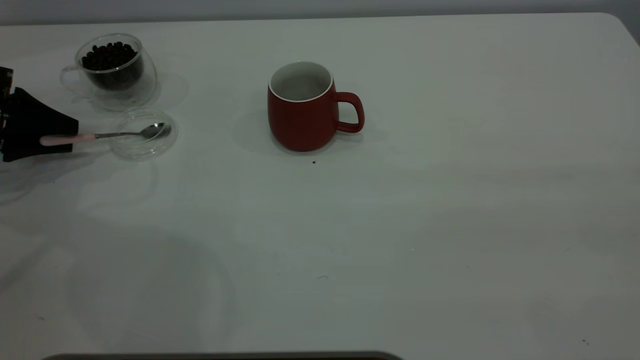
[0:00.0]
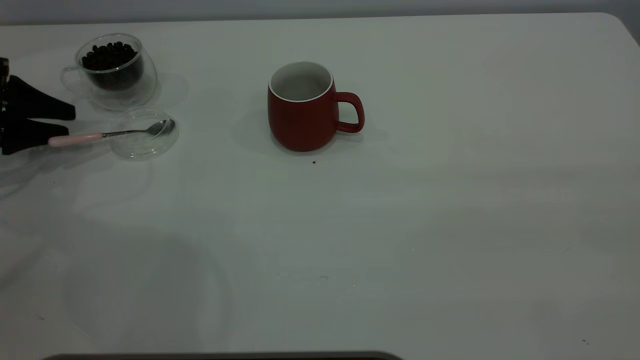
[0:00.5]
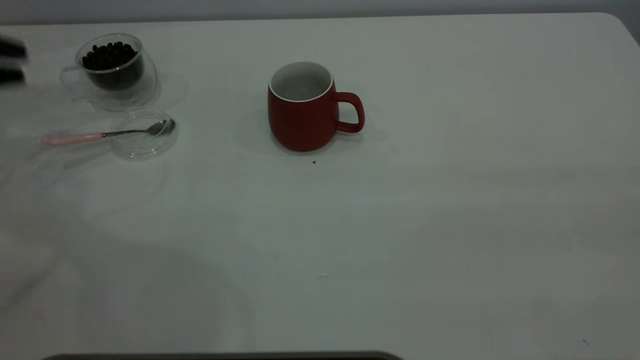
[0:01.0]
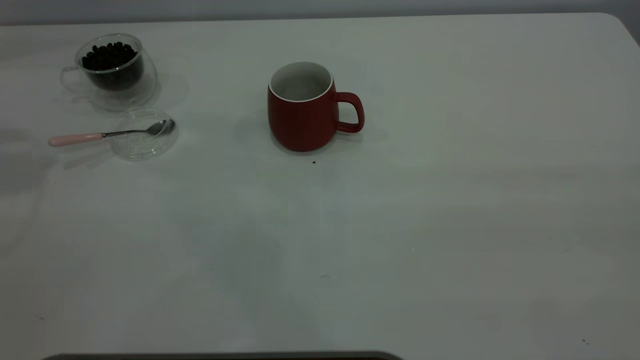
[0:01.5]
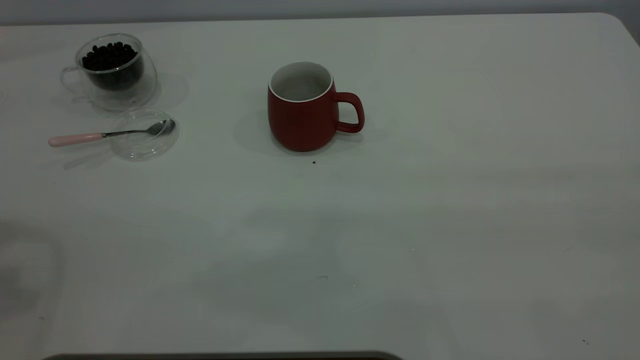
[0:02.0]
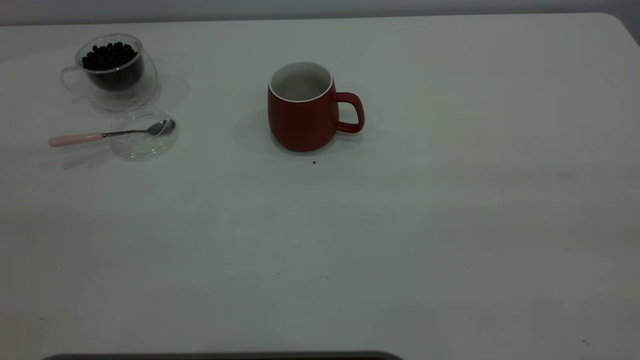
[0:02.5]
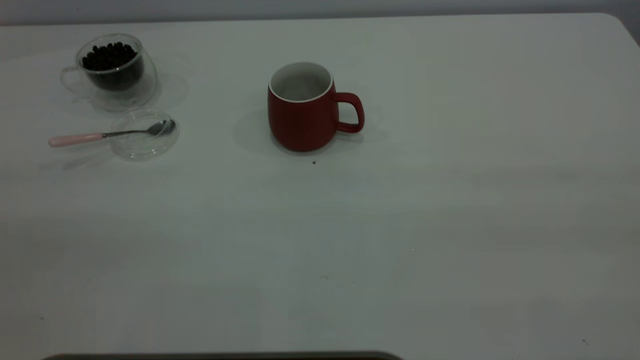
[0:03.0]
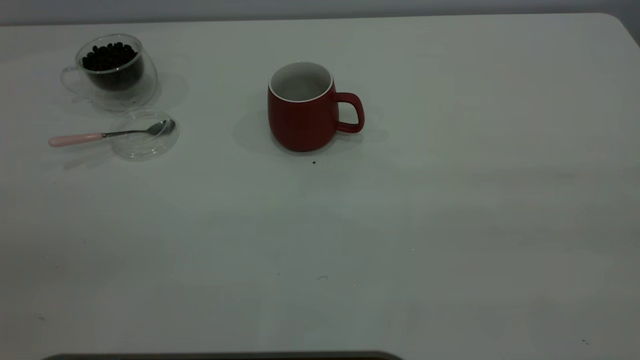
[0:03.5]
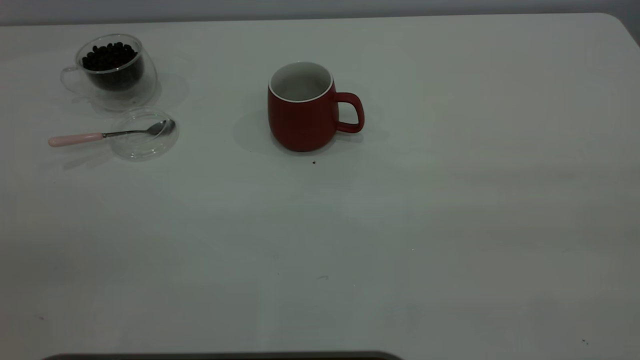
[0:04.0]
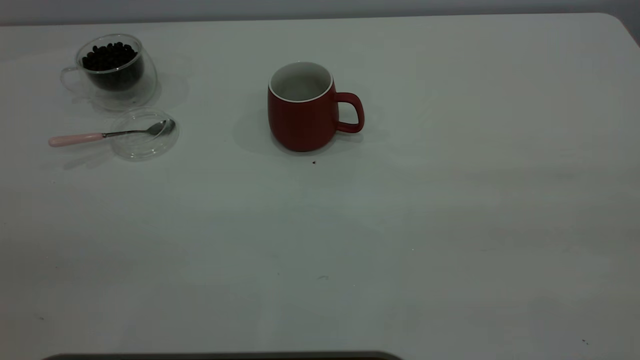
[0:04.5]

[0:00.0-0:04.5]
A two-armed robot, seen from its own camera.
Task of the whole recording: the right gripper place the red cup in the center of the table, the left gripper take the pink spoon from the cup lid and scoop out the coffee beans from the coffee cup and put them into the red cup, the left gripper put the spoon back into the cup lid.
0:00.0 to 0:02.0: The left gripper moves upward and backward, roughly 40 cm.

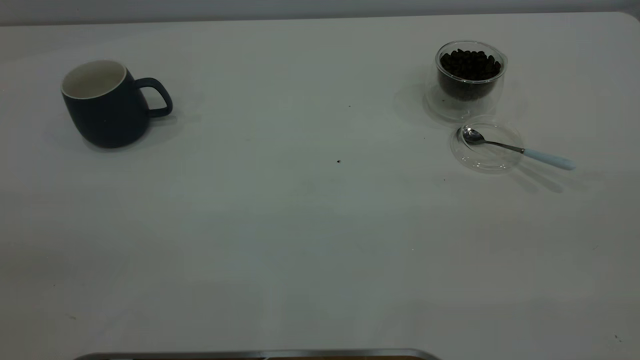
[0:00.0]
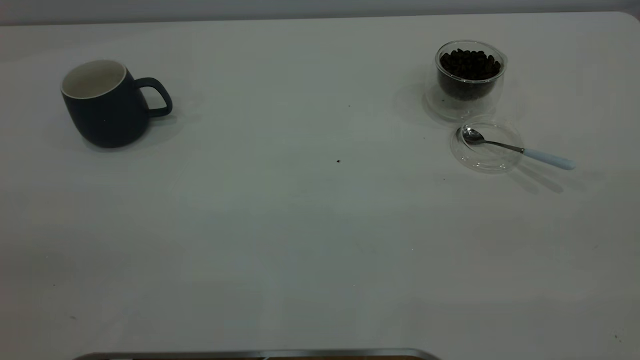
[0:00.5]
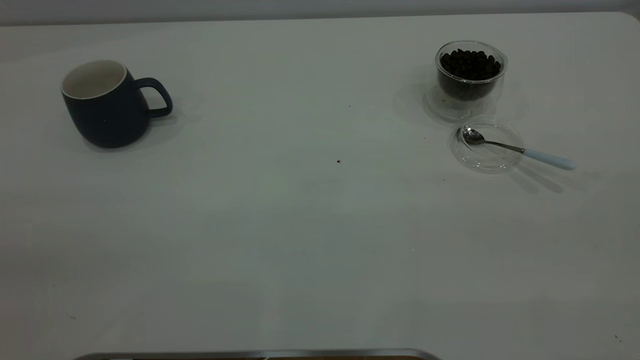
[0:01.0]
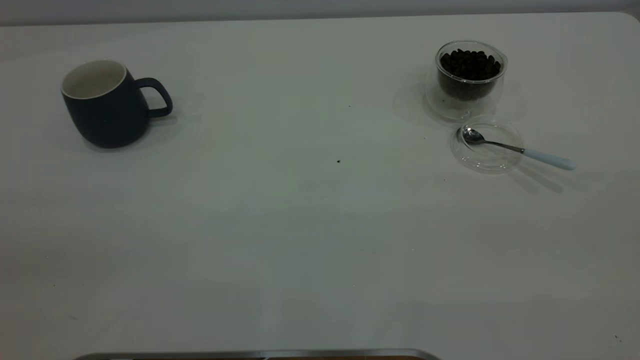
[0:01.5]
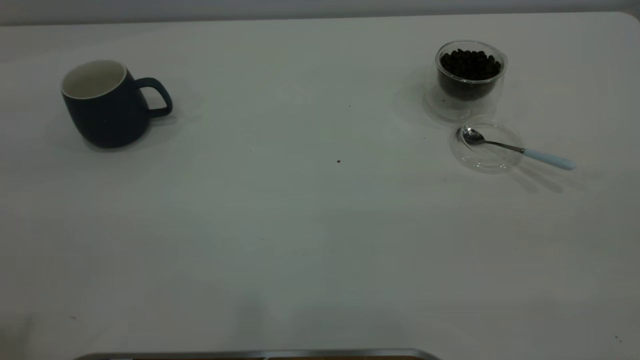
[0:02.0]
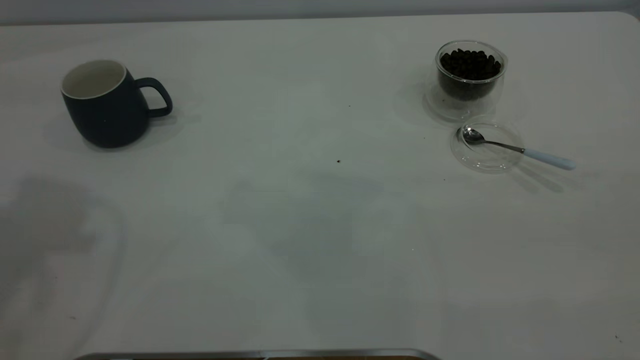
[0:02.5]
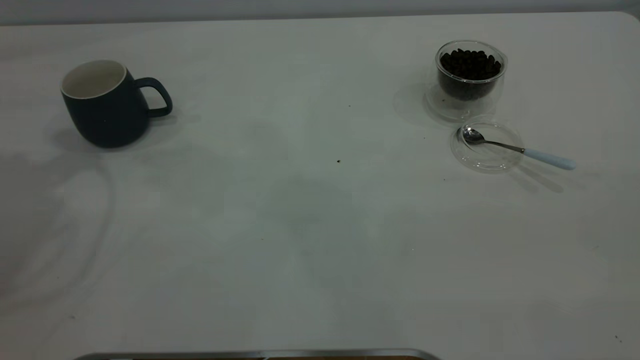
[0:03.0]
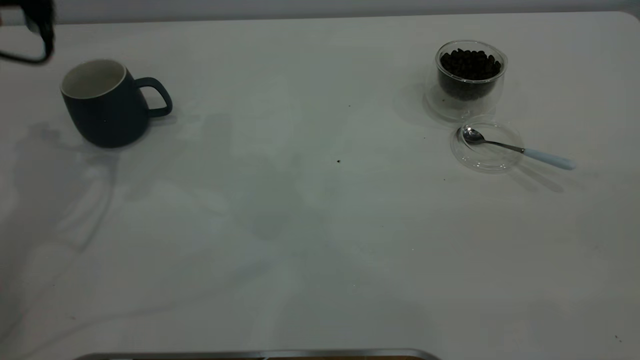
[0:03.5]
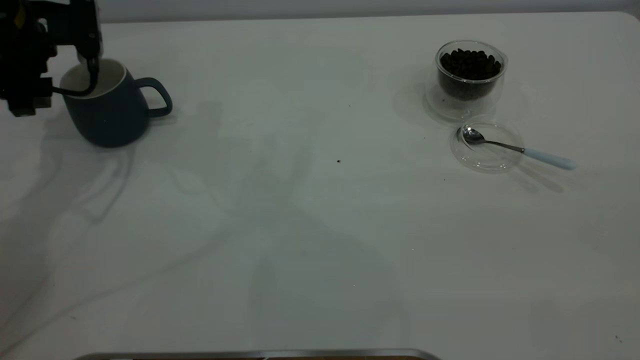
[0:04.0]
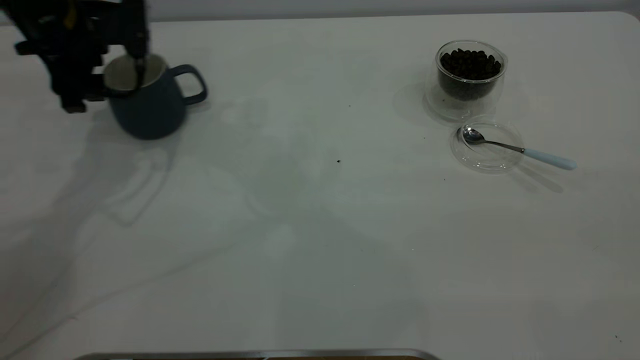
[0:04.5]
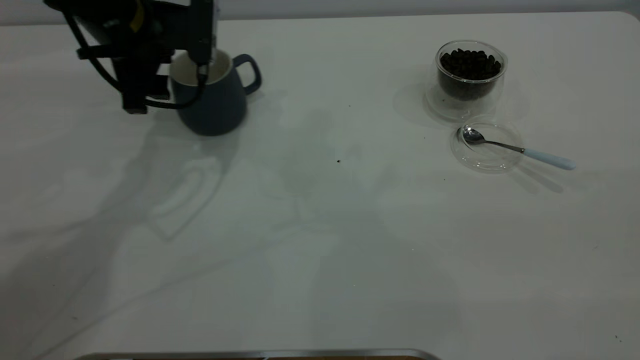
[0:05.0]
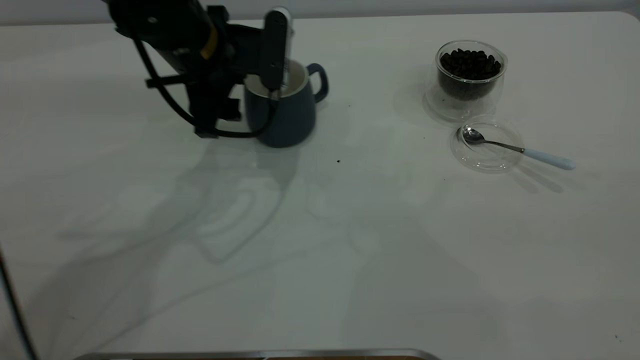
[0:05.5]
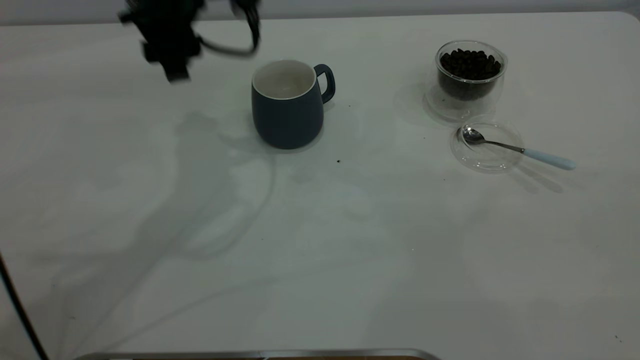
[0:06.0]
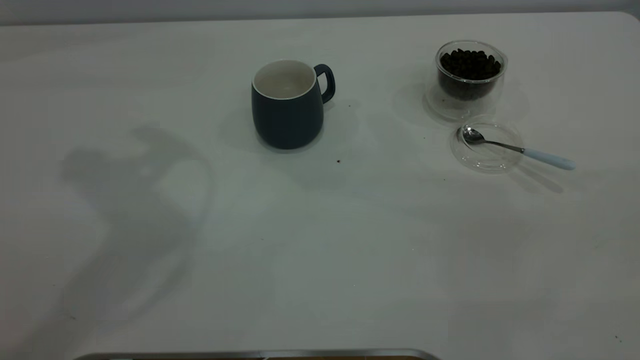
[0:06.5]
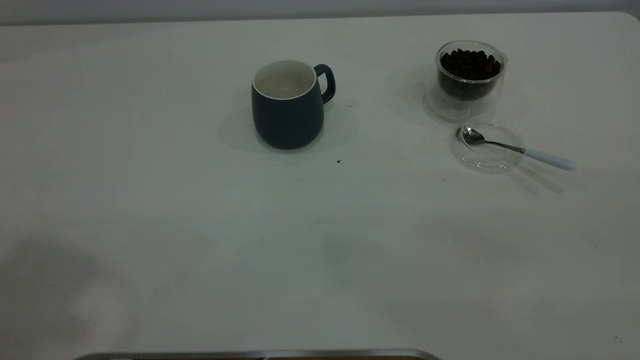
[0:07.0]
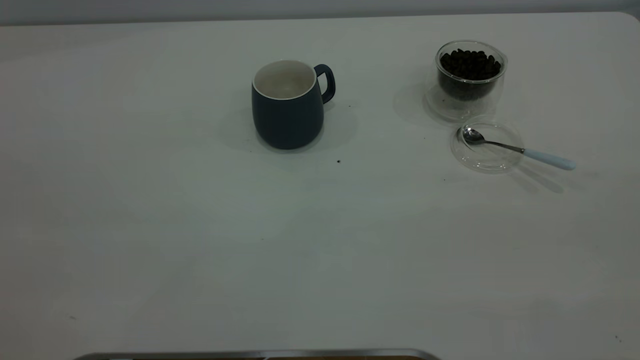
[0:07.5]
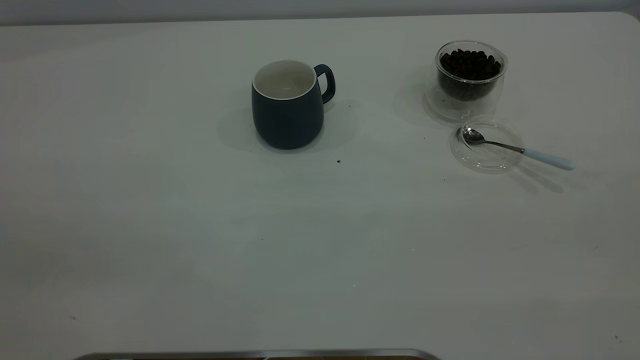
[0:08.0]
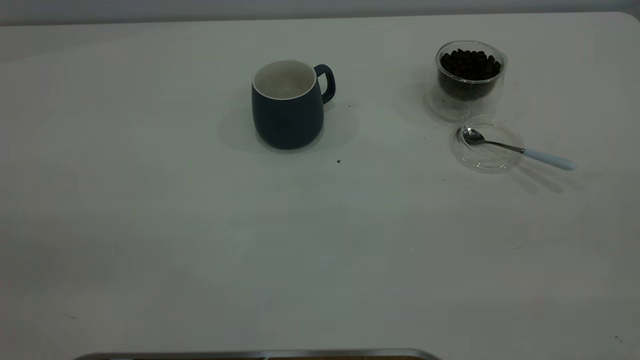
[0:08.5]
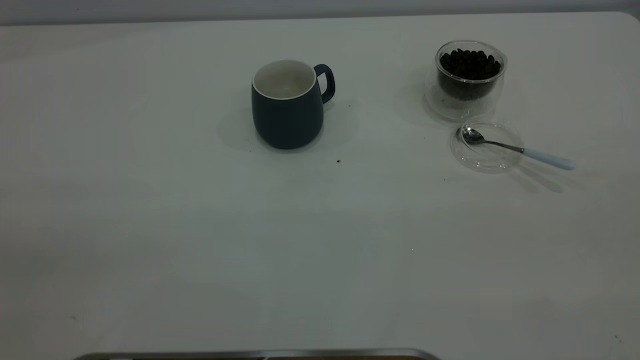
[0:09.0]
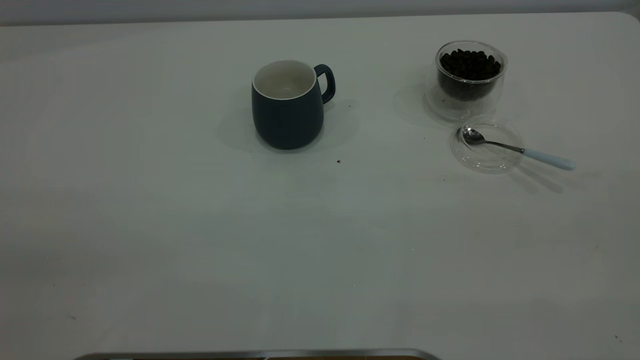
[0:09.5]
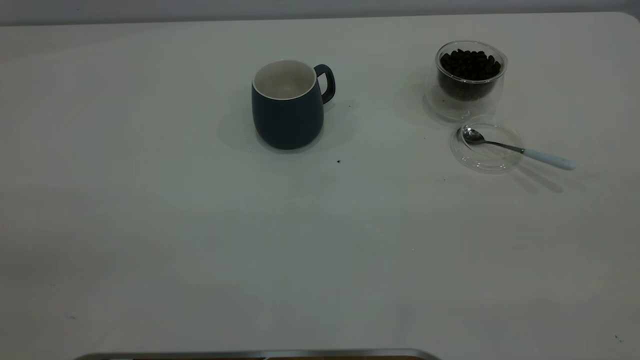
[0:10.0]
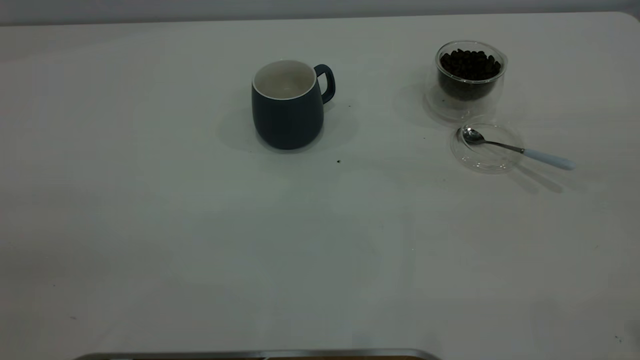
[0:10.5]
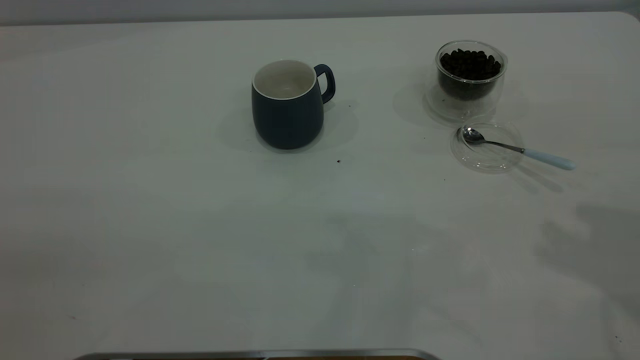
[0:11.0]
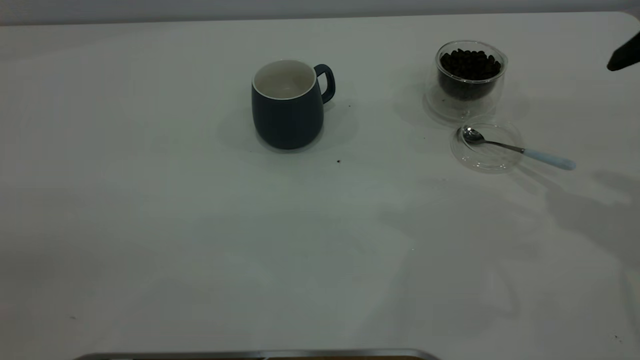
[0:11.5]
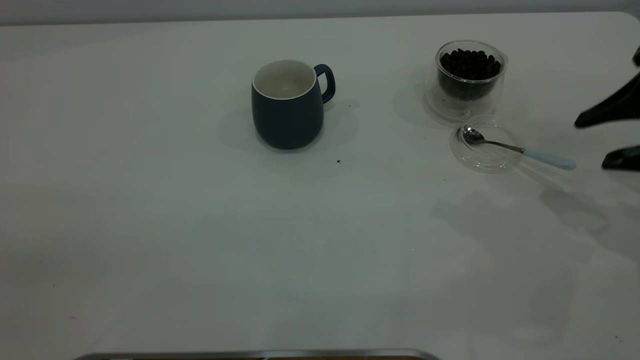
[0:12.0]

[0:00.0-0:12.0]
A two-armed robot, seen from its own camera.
Task of the whole recording: the left gripper place the grey cup in the center of the table, the right gripper take the blue spoon from the cup lid and scoop out the coffee beans from the coffee cup and put them into the grey cup, the right gripper put the spoon back into the cup lid.
Step, 0:00.0 to 0:05.5: Move the cup to the center of view.
0:02.0 to 0:04.0: The left gripper goes about 40 cm forward and downward.
0:04.0 to 0:06.0: The left gripper travels to the right by approximately 15 cm.
0:06.0 to 0:08.0: The left gripper moves backward, to the left and upward, about 40 cm.
0:10.0 to 0:12.0: The right gripper is displaced forward and downward by roughly 35 cm.

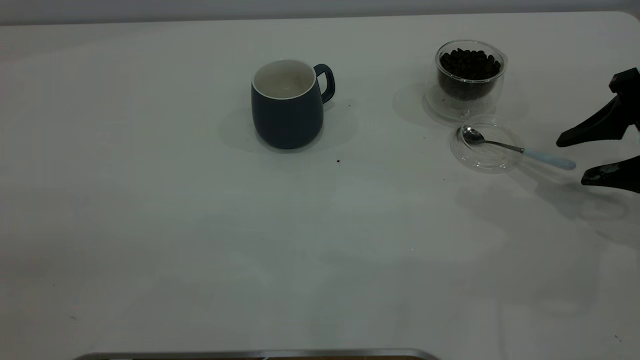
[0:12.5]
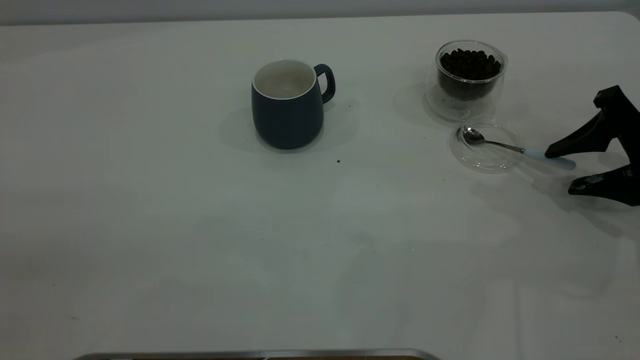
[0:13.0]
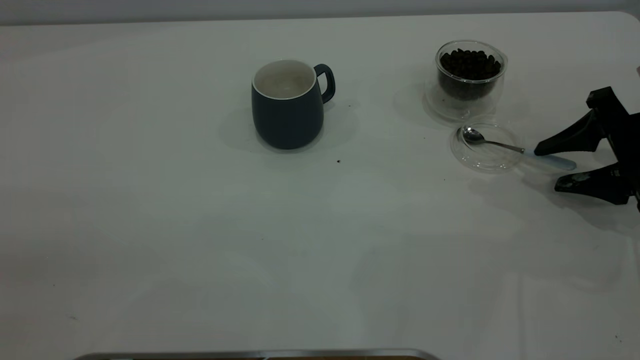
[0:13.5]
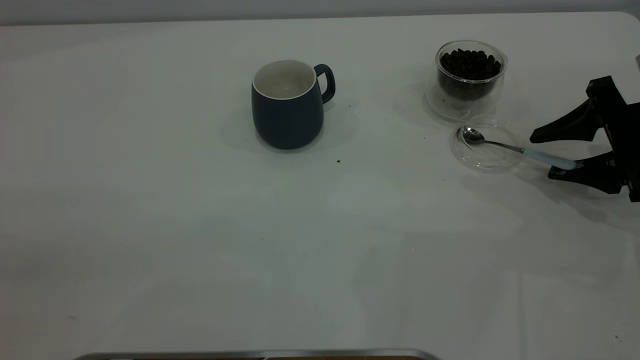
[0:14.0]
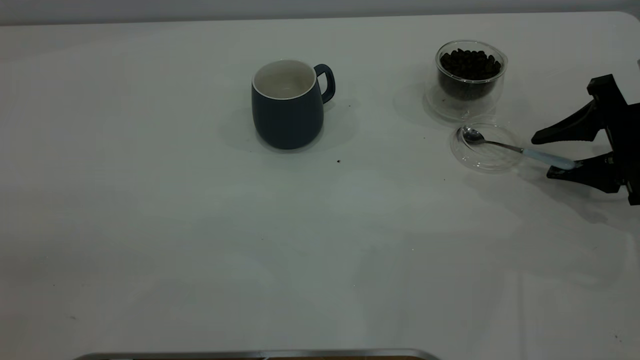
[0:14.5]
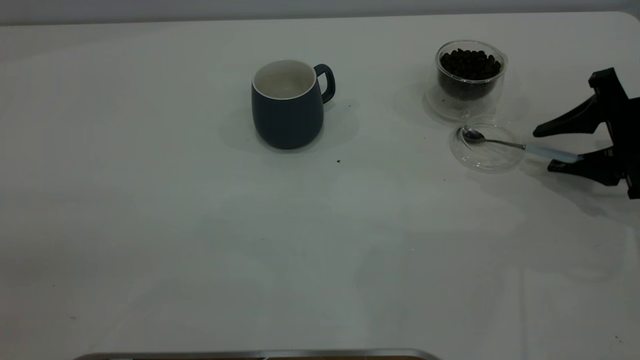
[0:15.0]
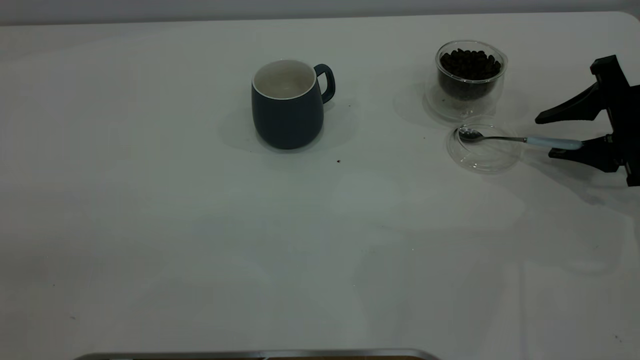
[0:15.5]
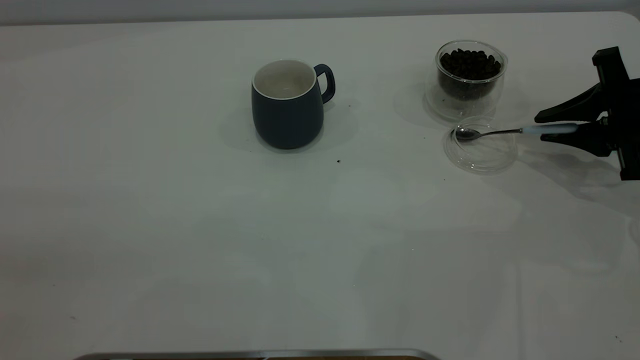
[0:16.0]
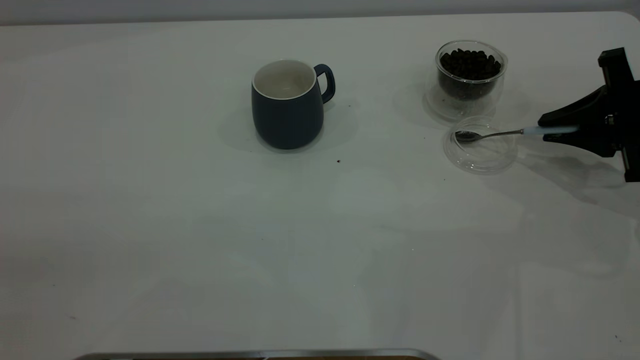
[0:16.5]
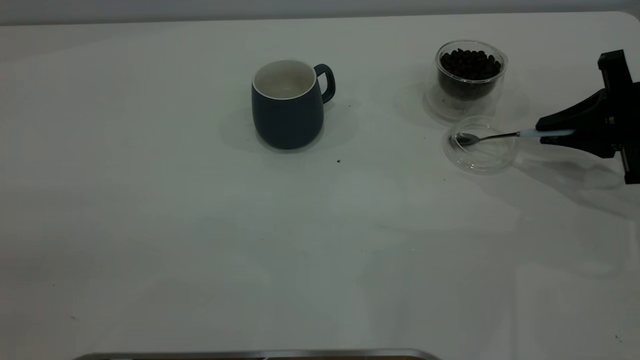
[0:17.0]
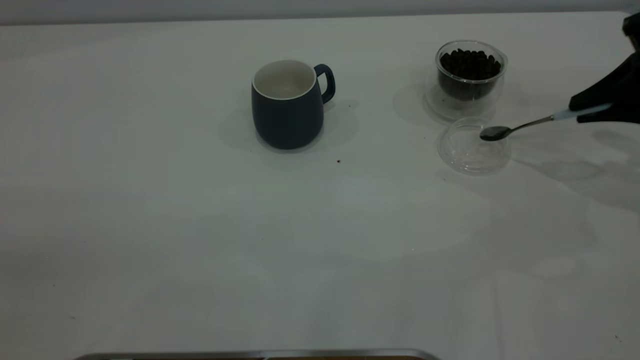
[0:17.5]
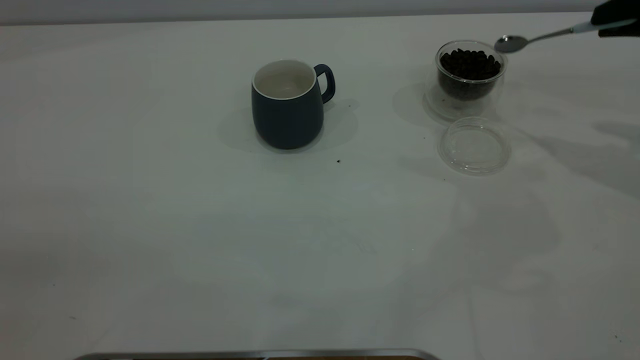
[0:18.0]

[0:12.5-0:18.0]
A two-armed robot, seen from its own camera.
Task of the whole recording: the left gripper place the grey cup in the center of the table, the right gripper take the blue spoon from the cup lid and scoop out the coffee beans from the coffee cup and put them into the grey cup, the right gripper put the spoon back into the cup lid.
Step, 0:12.5 to 0:17.5: Pick up the spoon.
0:12.5 to 0:14.5: The grippers stay close to where they were, moving slightly.
0:14.5 to 0:16.0: The right gripper closes.
0:16.0 to 0:18.0: The right gripper moves upward, approximately 15 cm.
